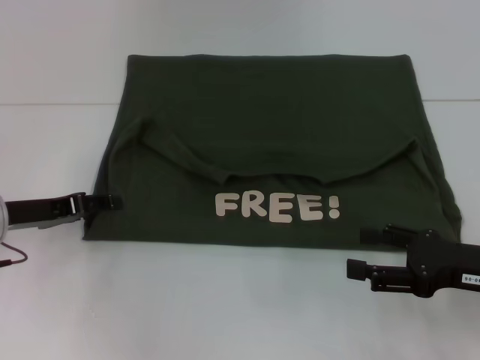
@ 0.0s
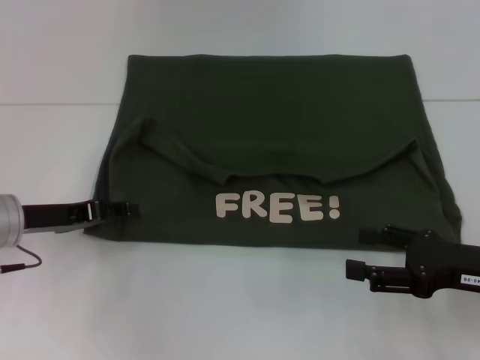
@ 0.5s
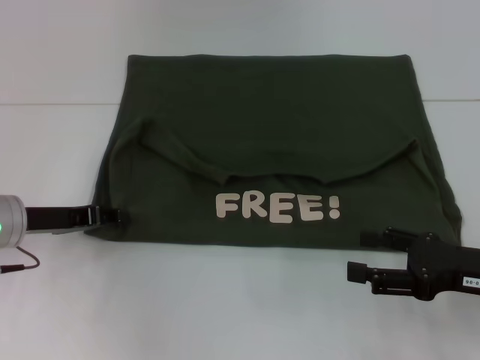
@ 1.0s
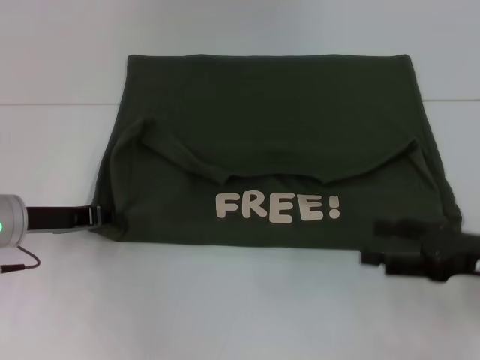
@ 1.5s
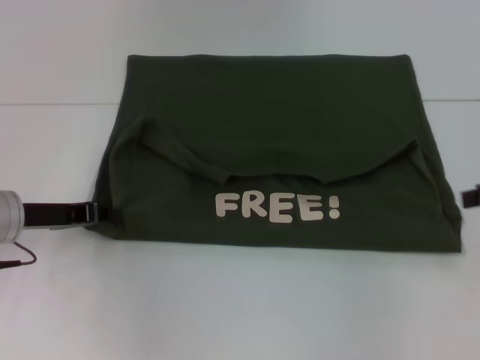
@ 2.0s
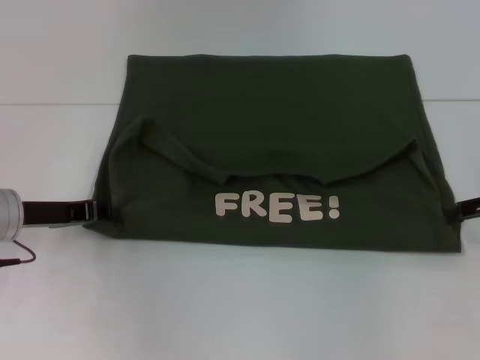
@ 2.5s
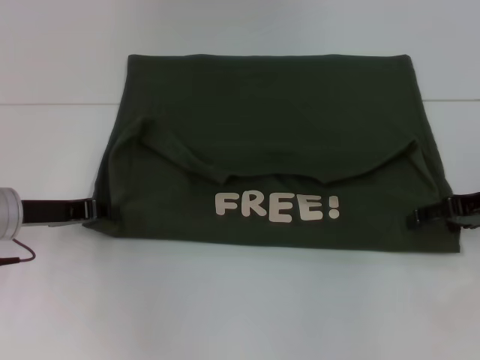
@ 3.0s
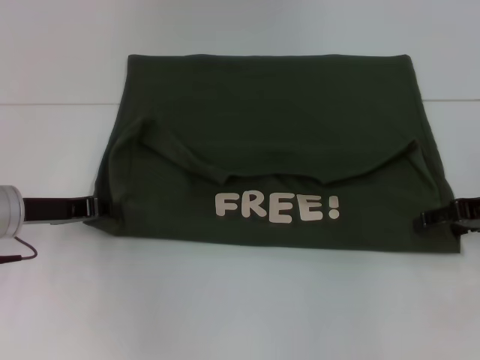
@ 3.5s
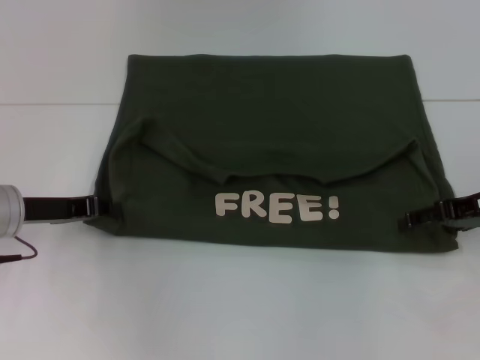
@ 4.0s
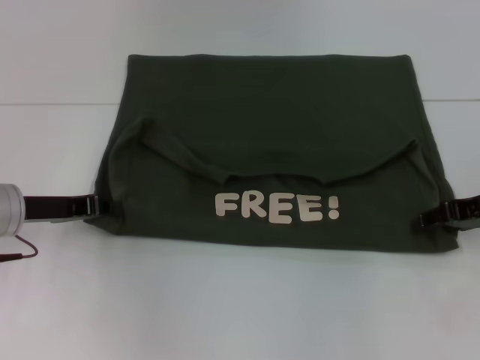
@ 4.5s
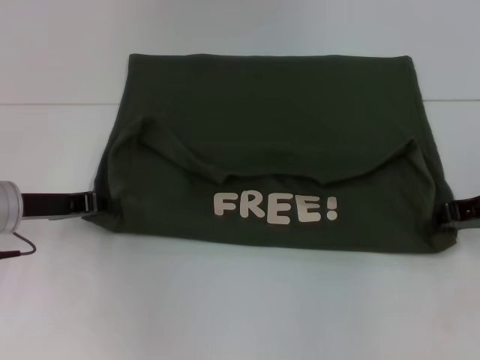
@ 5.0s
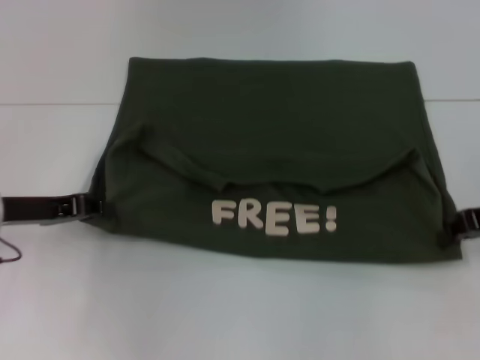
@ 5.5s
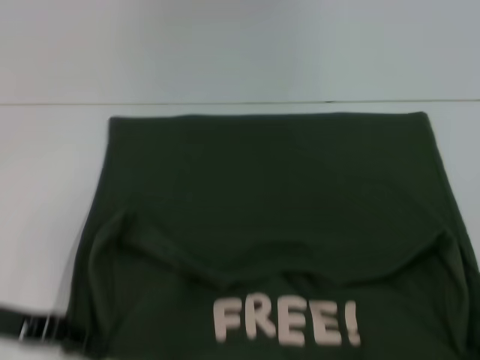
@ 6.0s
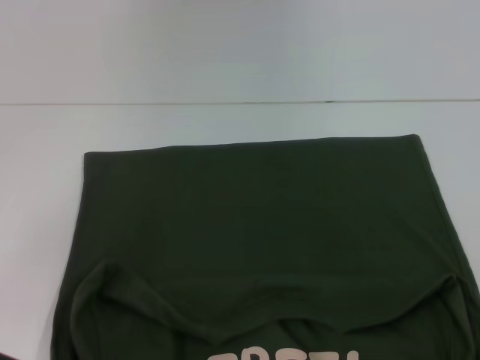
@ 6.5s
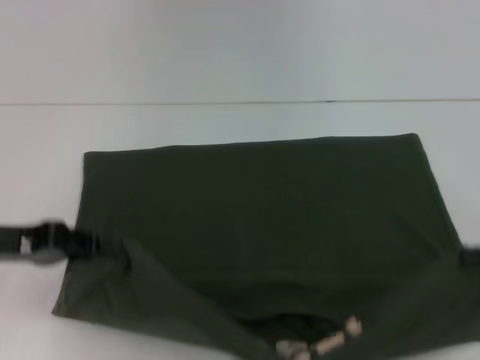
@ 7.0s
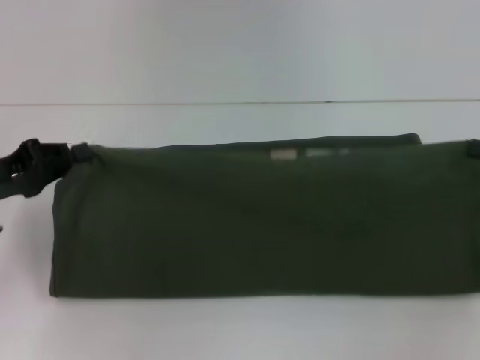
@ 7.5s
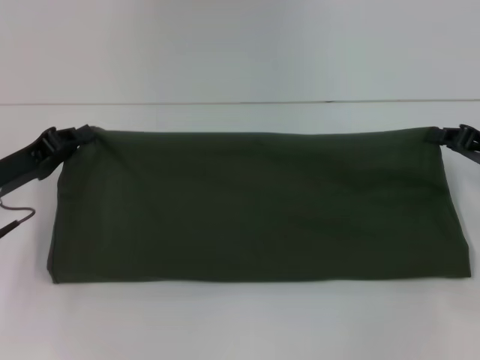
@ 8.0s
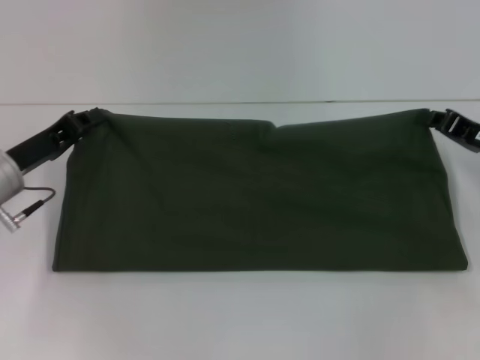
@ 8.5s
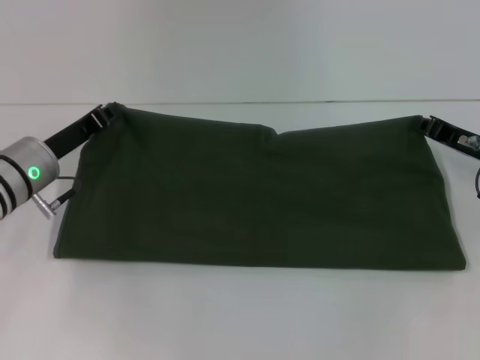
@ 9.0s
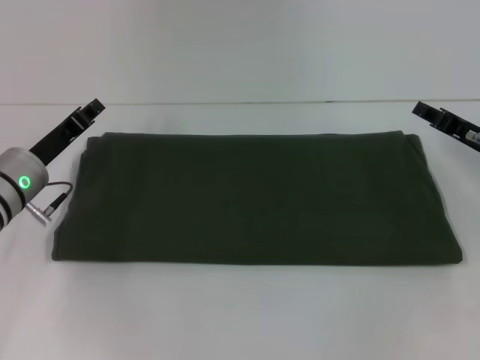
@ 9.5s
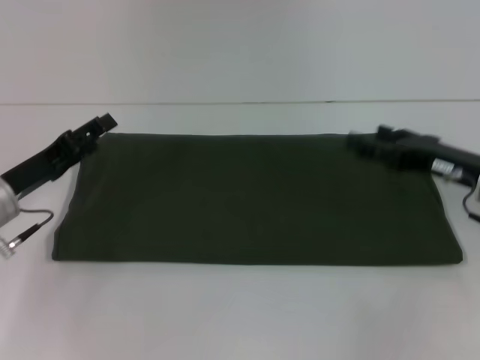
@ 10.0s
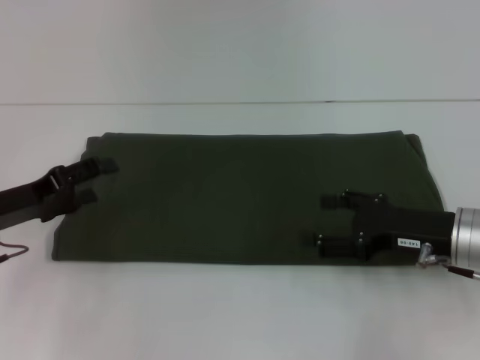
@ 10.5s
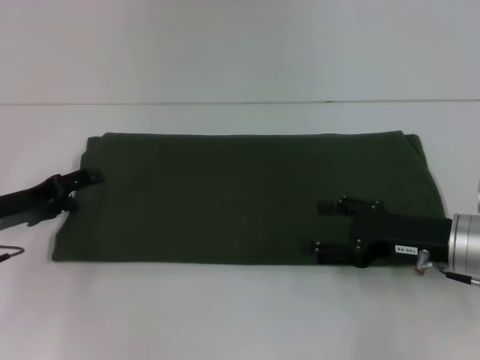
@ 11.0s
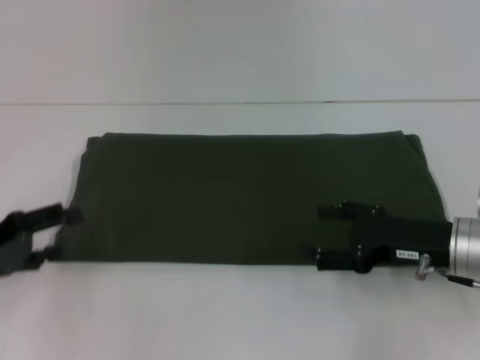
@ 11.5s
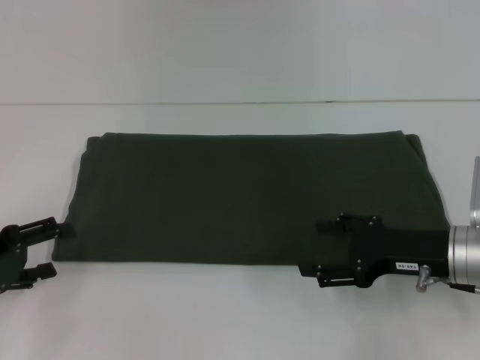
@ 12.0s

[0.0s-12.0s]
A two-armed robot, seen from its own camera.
Step, 0.0s to 6.0s: Pull the clothes with your left hand.
Step, 0.0s to 6.0s: Pull the clothes with your right hand.
Step, 6.5s to 9.5s: Fold the clothes with your right hand.
0.0s to 2.0s: The left gripper closes up. The right gripper shifts approximately 15 cm upward, to the right and forward.
2.0s to 4.0s: The right gripper travels downward and to the left by approximately 10 cm.
4.0s to 6.0s: The two grippers go some 10 cm backward. The right gripper closes its fingers.
6.0s to 8.0s: Both grippers travel together forward, approximately 5 cm.
8.0s to 10.0s: The right gripper moves to the left, about 5 cm, and opens up, while the left gripper opens its fingers.
10.0s to 12.0s: The left gripper goes roughly 10 cm backward and to the left, while the right gripper shifts approximately 5 cm backward.

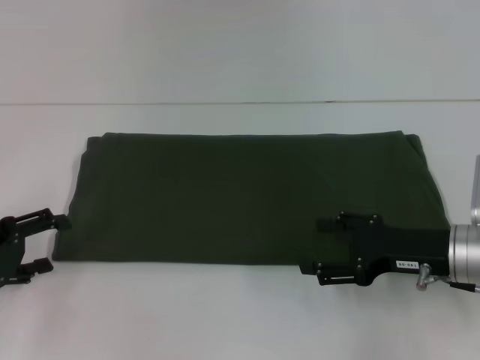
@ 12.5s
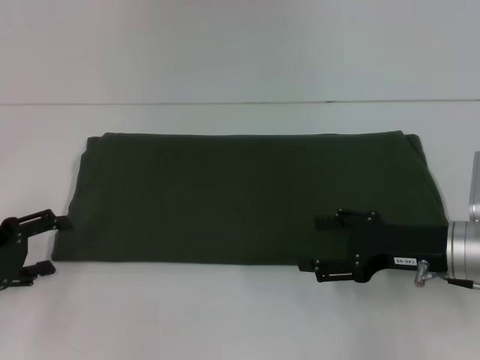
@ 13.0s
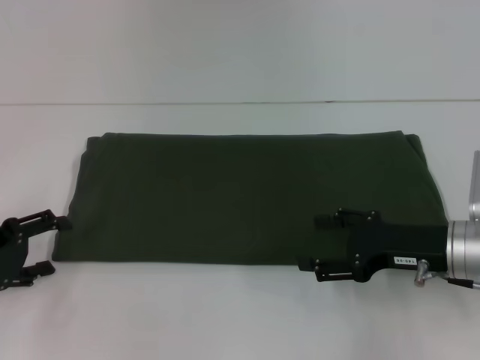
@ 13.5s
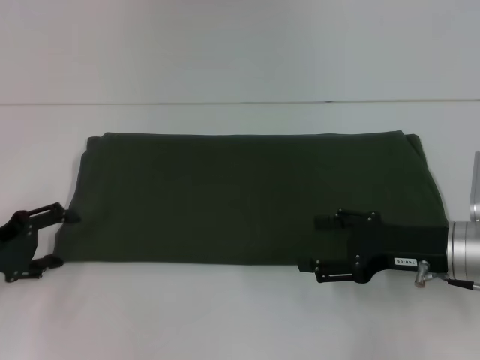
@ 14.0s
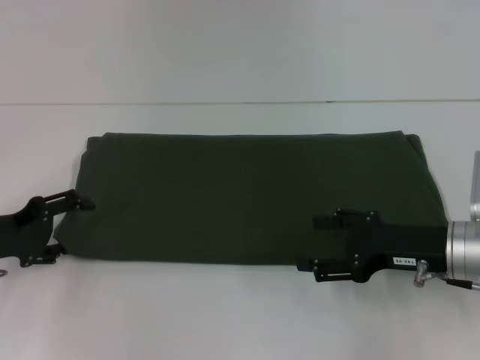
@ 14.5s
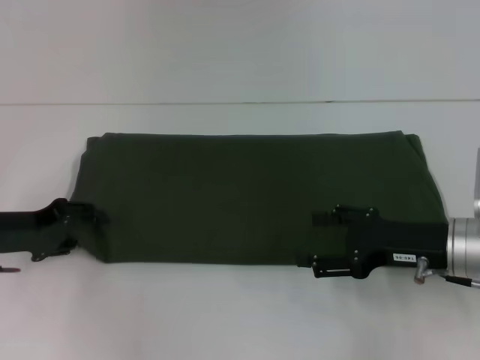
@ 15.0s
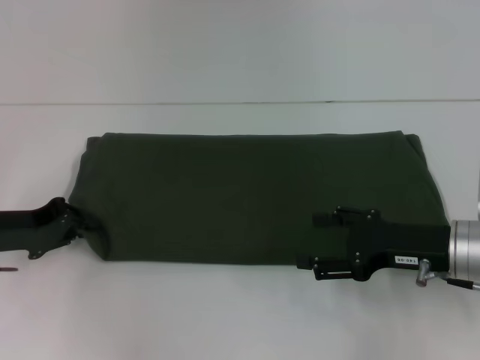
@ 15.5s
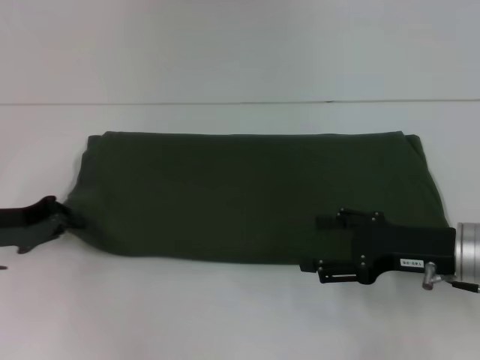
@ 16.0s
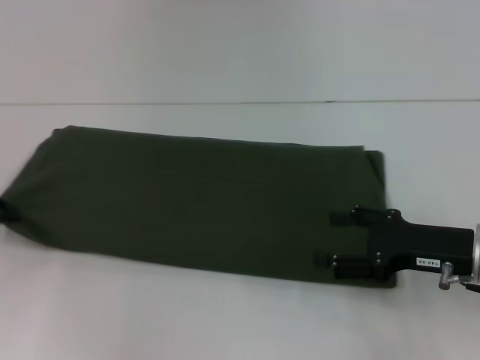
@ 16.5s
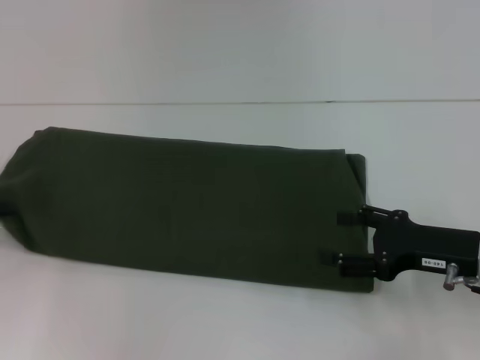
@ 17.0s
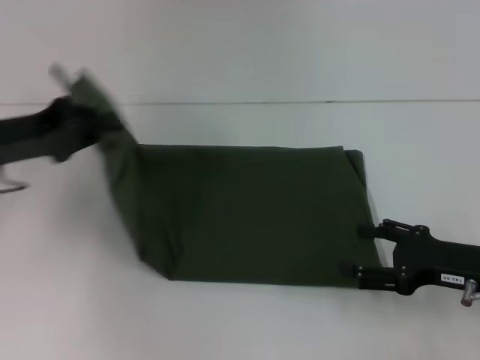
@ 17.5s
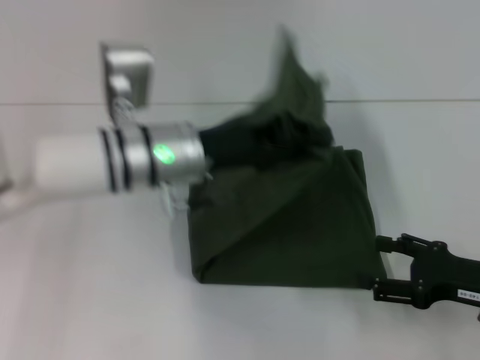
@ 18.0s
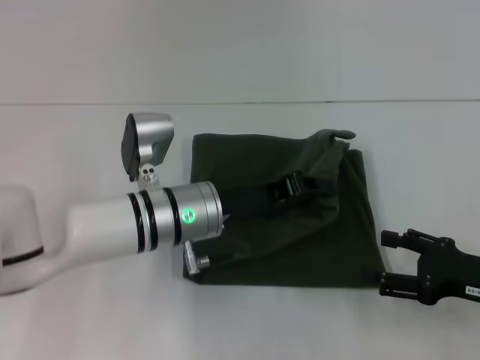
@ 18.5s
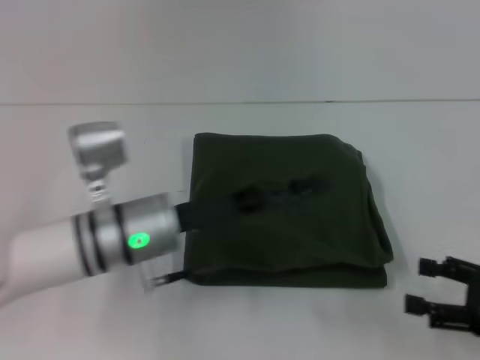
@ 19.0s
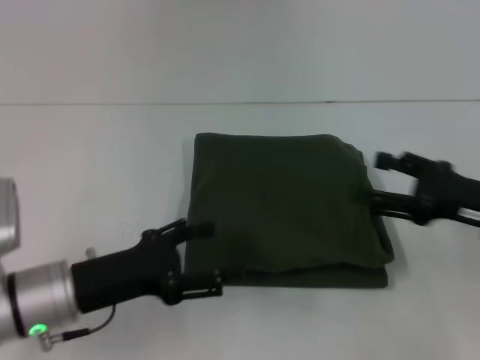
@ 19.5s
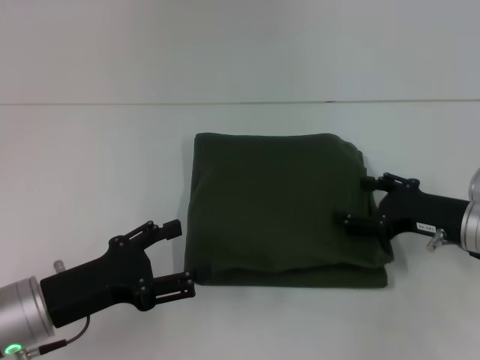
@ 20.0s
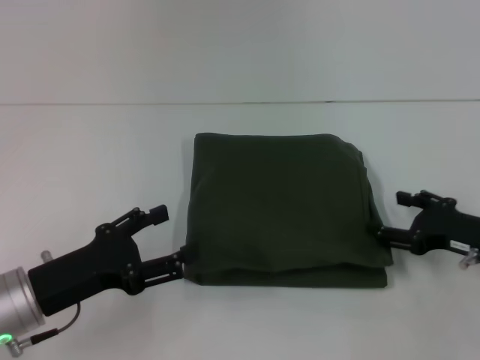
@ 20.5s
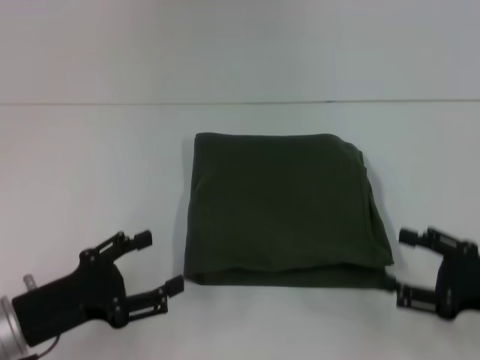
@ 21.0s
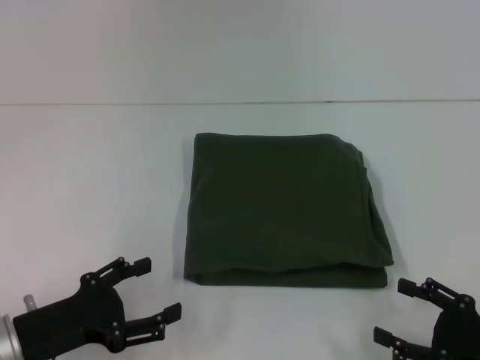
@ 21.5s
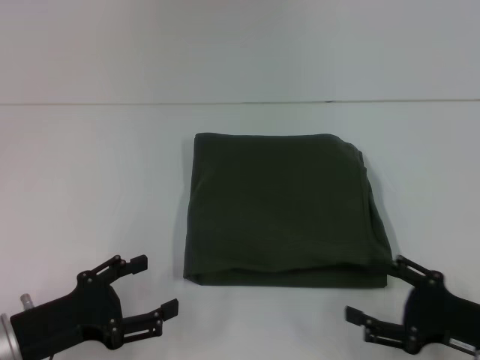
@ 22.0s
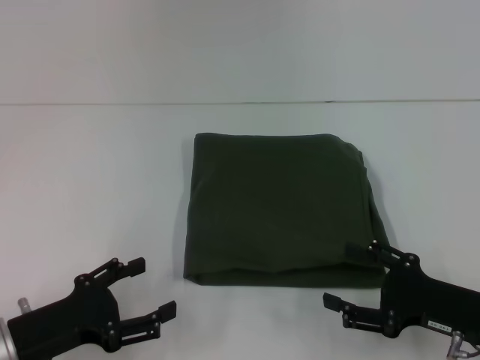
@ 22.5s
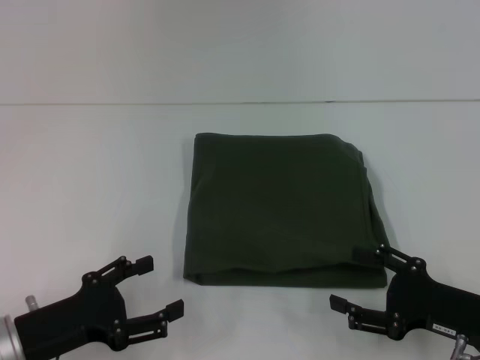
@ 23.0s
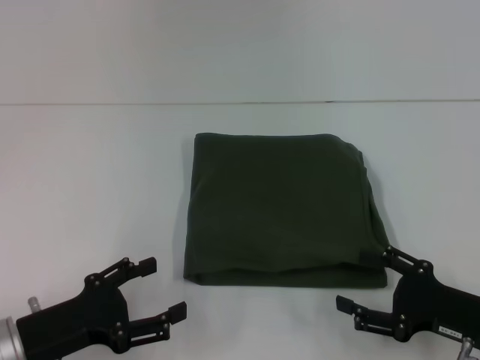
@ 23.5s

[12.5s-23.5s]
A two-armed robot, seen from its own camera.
Step, 12.5s to 19.0s: Fold the clothes with your left hand.
12.5s to 14.5s: The grippers stay close to where they were, moving slightly.
14.5s to 16.0s: The left gripper closes.
16.0s to 18.0s: The left gripper travels to the right by roughly 20 cm, while the right gripper shifts roughly 5 cm to the right.
18.0s to 20.0s: The right gripper travels forward by approximately 5 cm; the left gripper moves backward, to the left and downward, roughly 20 cm, and opens.
20.0s to 21.5s: The right gripper shifts approximately 15 cm backward.
21.5s to 23.5s: The right gripper shifts by approximately 5 cm.

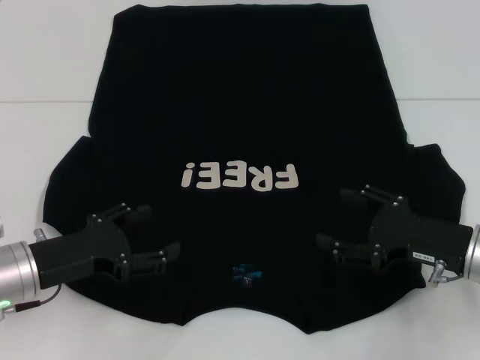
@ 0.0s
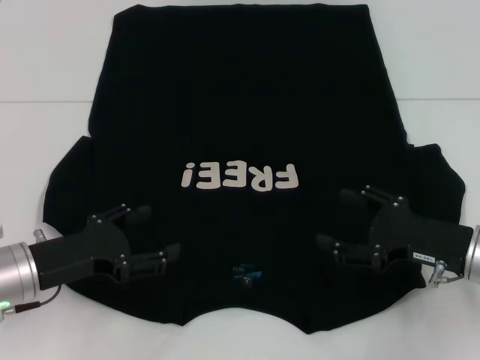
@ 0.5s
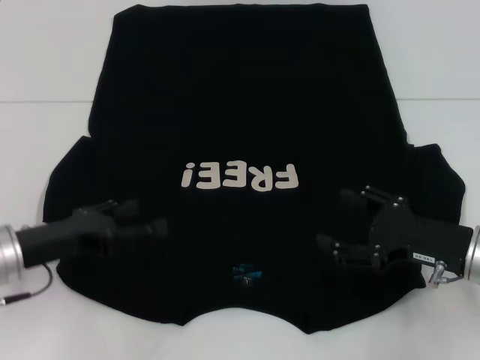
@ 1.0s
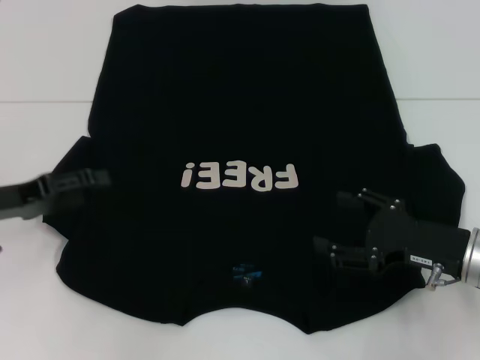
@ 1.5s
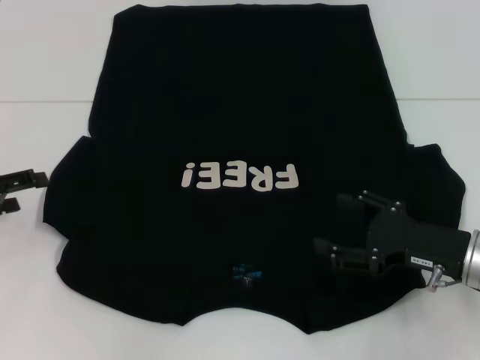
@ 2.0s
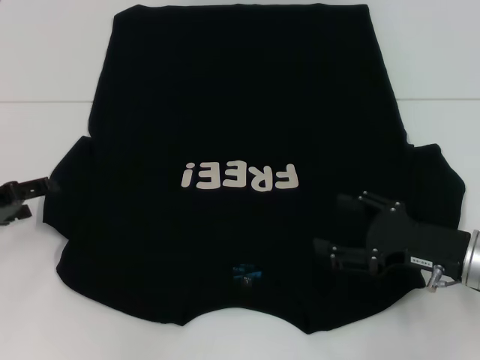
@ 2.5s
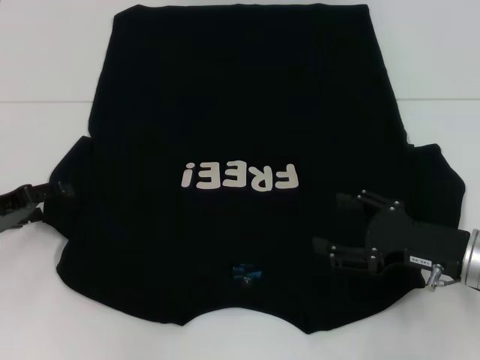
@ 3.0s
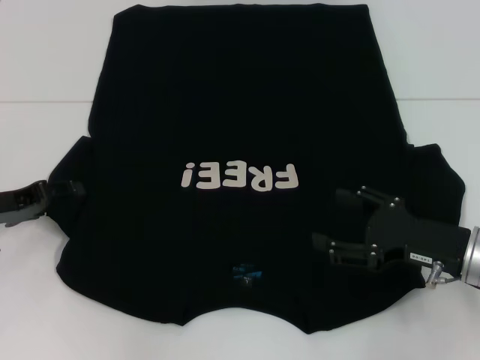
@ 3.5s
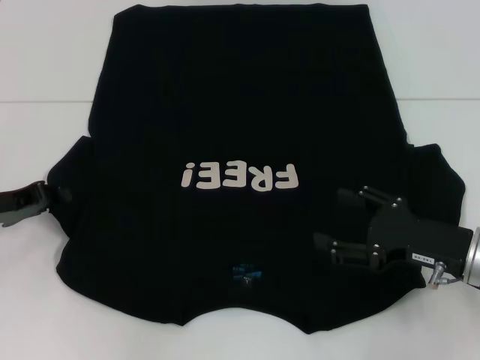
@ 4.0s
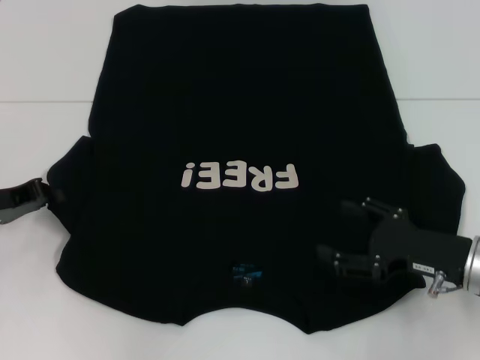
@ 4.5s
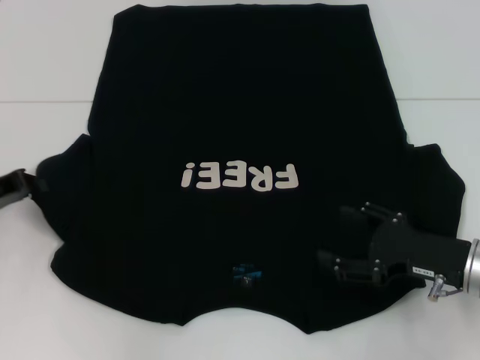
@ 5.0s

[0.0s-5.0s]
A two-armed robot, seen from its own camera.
0.0s to 2.5s: The left gripper heads to the left, covering roughly 10 cm.
2.5s to 5.0s: The left gripper closes up.
